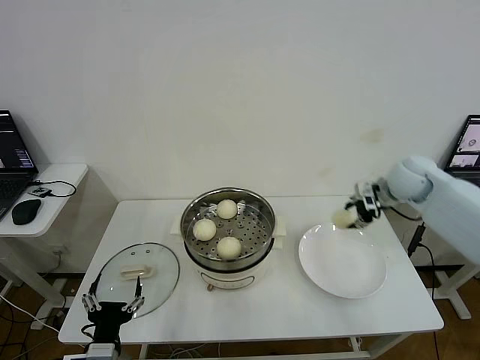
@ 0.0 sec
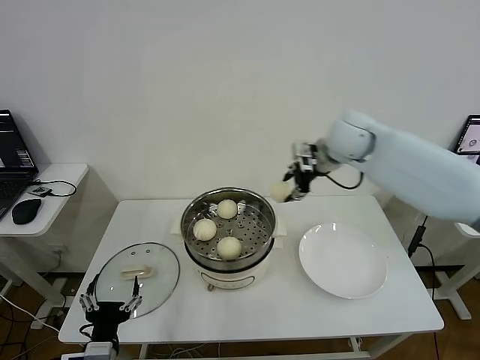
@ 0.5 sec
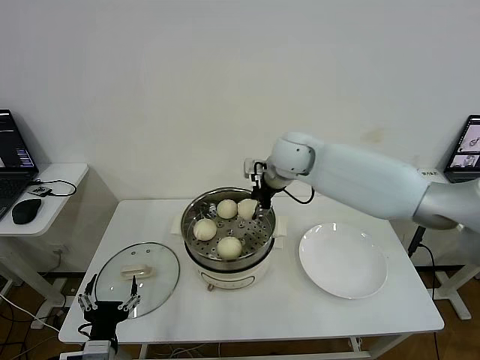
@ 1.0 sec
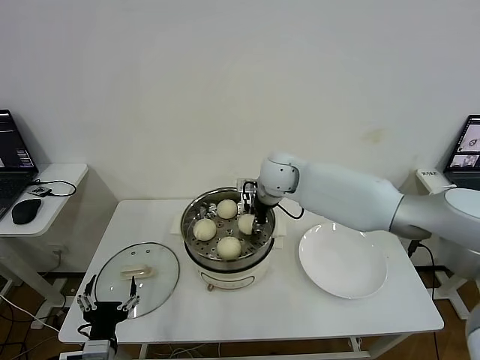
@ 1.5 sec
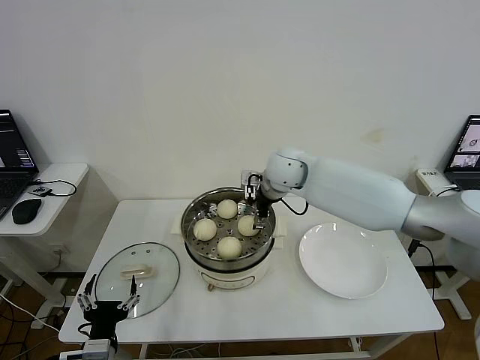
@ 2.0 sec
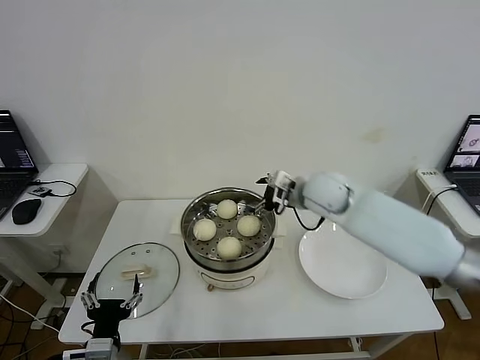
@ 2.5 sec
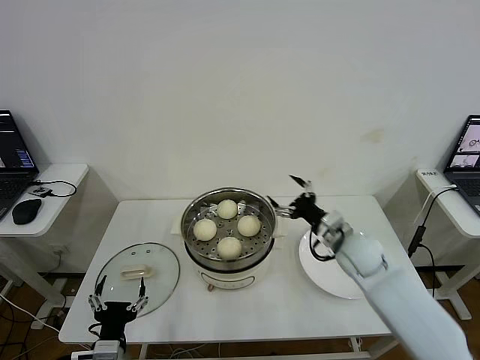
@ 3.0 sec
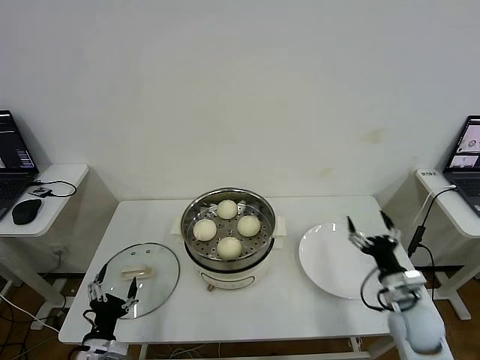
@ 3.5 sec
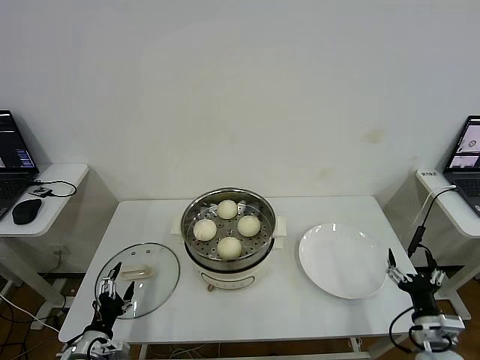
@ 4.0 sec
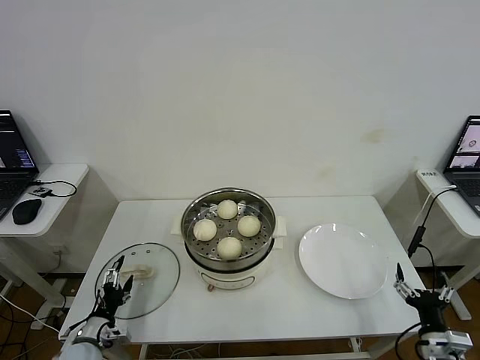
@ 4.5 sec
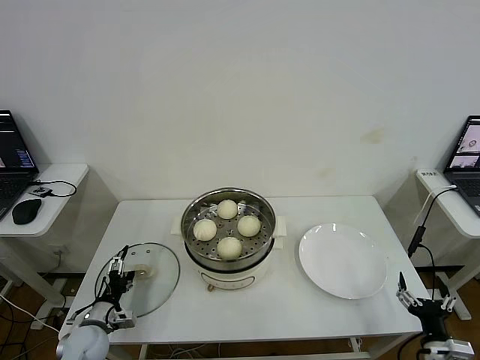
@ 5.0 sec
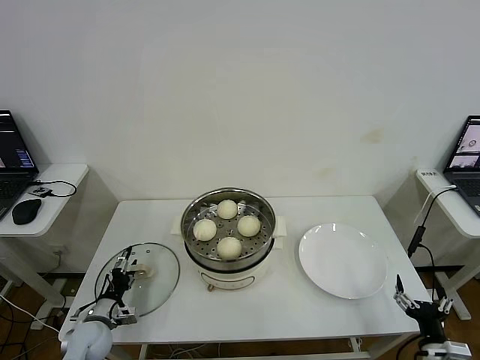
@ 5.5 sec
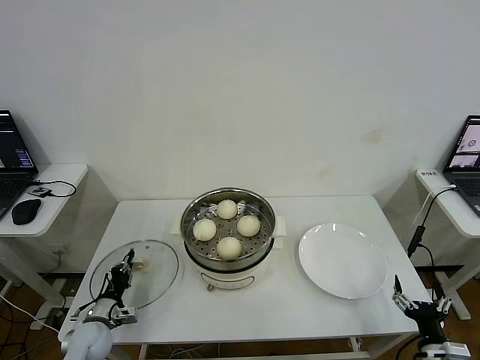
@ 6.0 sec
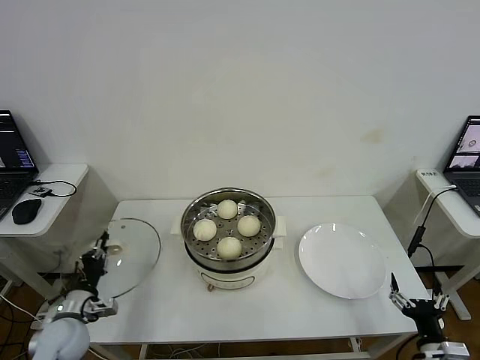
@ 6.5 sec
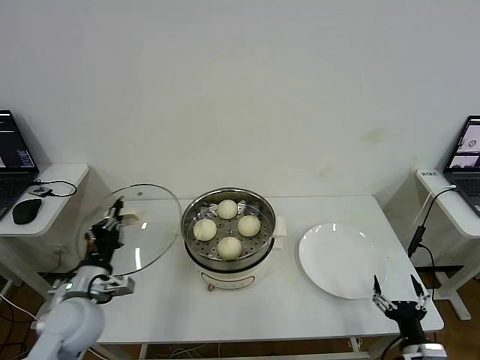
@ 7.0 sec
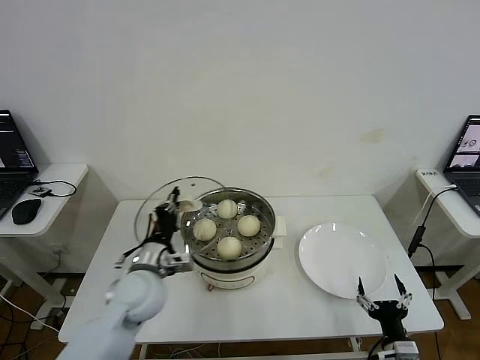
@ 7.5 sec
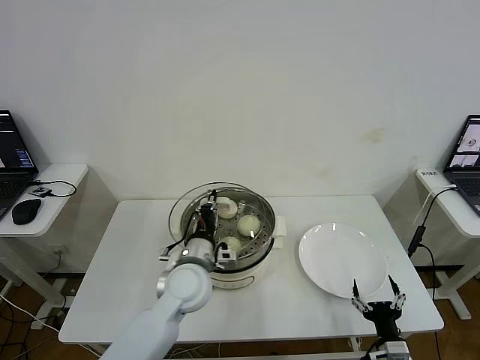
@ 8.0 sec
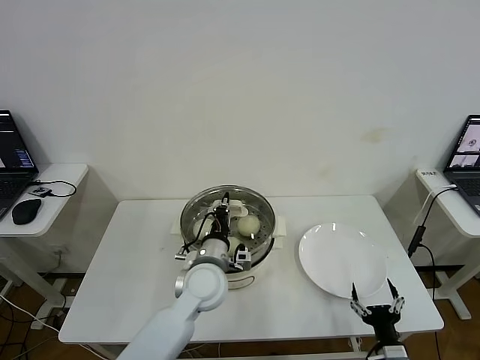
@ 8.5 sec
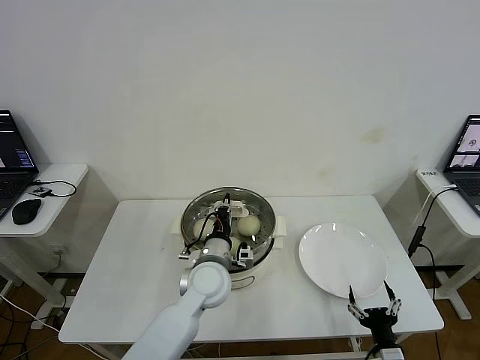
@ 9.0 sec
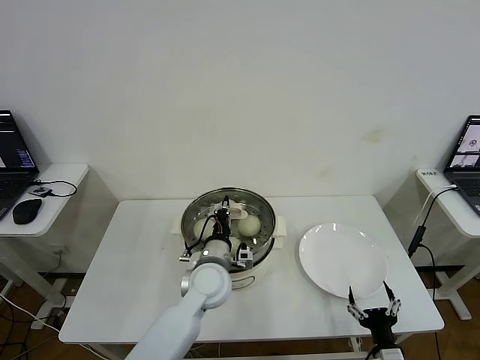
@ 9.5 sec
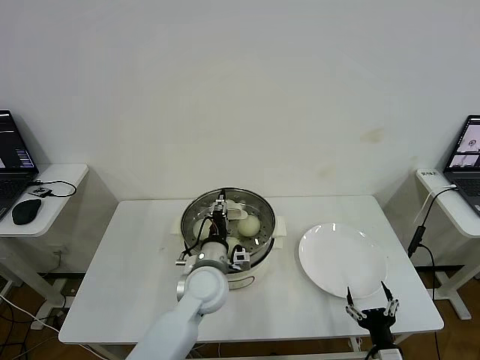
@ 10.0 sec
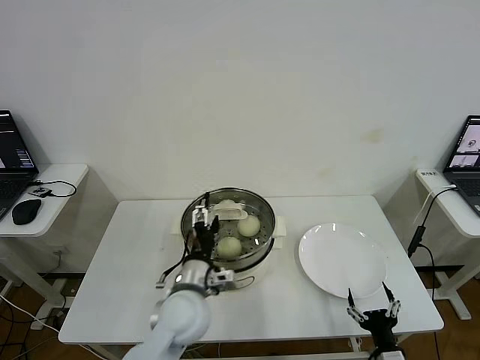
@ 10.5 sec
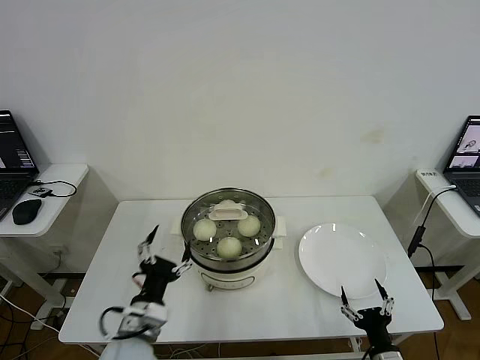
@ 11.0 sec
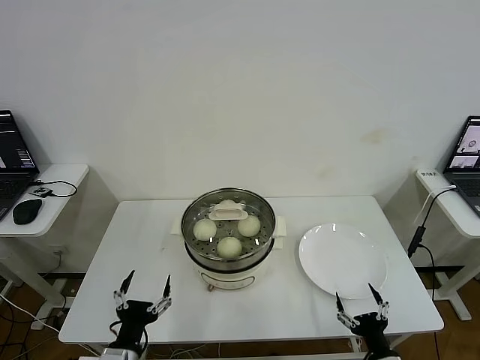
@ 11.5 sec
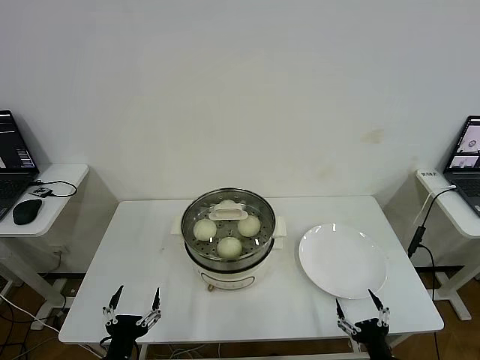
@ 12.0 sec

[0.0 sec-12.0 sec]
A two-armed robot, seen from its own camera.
Step, 0.0 sec to 1.5 sec: Place the baozi on the steamer with right gripper.
Step, 2.0 sec to 6.0 sec: Grasp the pot lid with left gripper.
Step, 6.5 sec to 10.0 sec: Place the pot lid on the steamer with left gripper.
0.0 sec to 2.0 sec: The right gripper is displaced to the left by roughly 25 cm, and opens.
2.0 sec to 4.0 sec: The left gripper moves to the left and downward, some 10 cm; the right gripper heads backward, to the right and downward, covering some 50 cm.
4.0 sec to 6.0 sec: The left gripper shifts about 10 cm forward, and closes its fingers. The right gripper goes about 5 cm backward.
6.0 sec to 8.0 sec: The right gripper heads to the left, covering roughly 5 cm. The left gripper moves to the right and upward, roughly 30 cm.
8.0 sec to 10.0 sec: The left gripper ends up roughly 5 cm from where it was, and opens its fingers.
10.0 sec to 12.0 sec: The left gripper goes about 30 cm backward and to the left, and opens its fingers.
